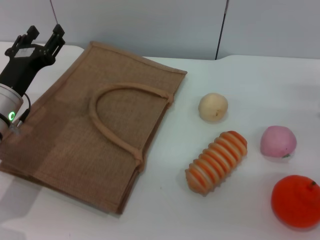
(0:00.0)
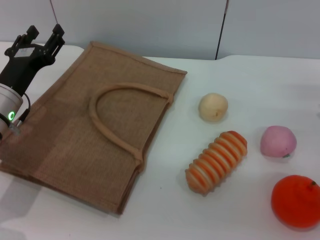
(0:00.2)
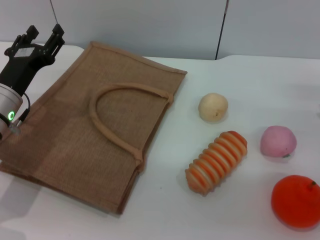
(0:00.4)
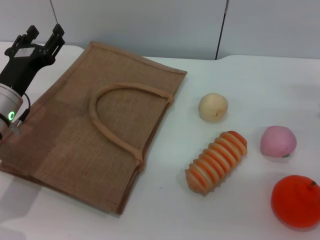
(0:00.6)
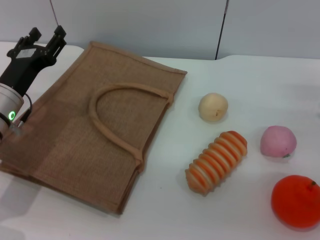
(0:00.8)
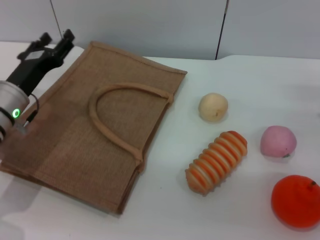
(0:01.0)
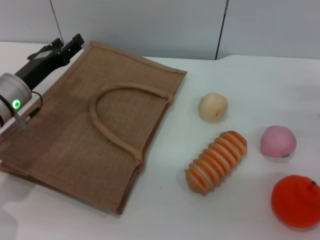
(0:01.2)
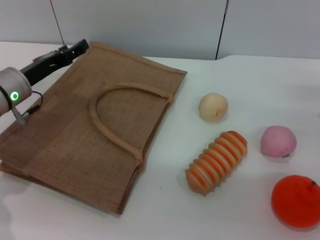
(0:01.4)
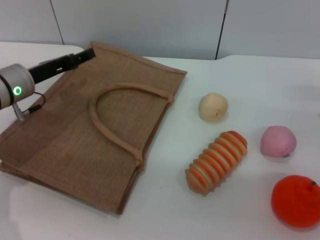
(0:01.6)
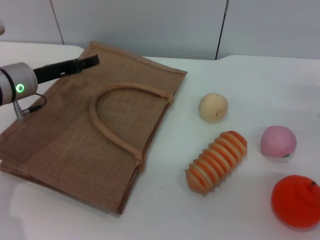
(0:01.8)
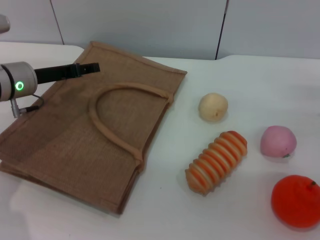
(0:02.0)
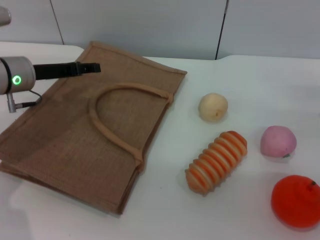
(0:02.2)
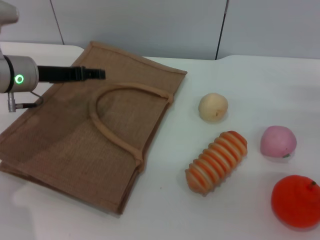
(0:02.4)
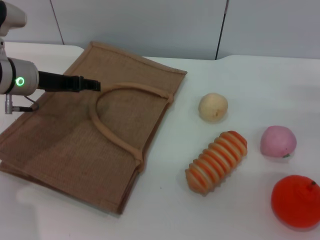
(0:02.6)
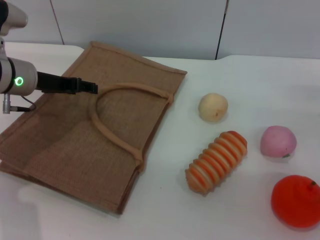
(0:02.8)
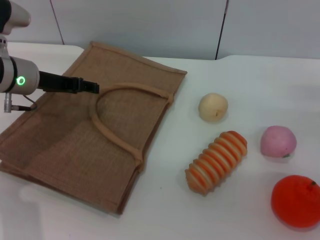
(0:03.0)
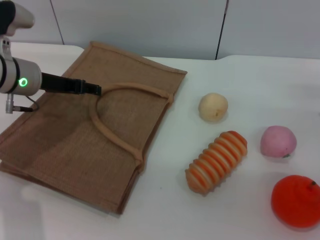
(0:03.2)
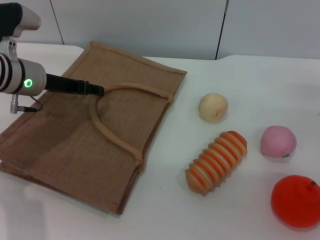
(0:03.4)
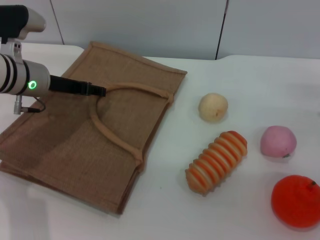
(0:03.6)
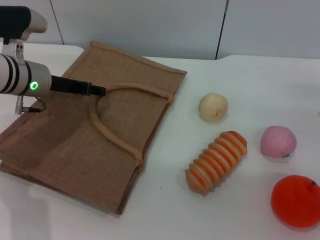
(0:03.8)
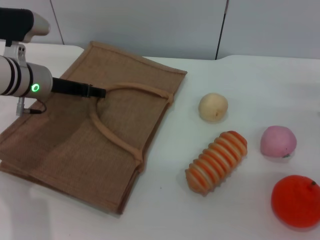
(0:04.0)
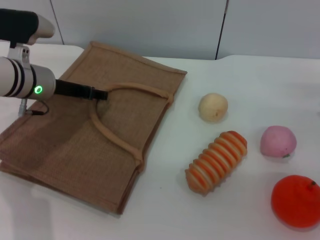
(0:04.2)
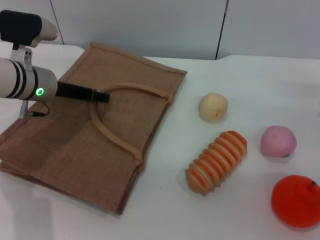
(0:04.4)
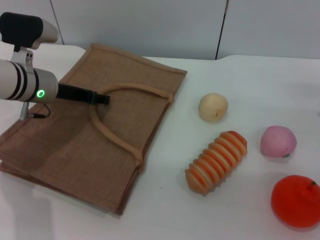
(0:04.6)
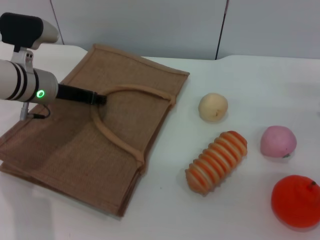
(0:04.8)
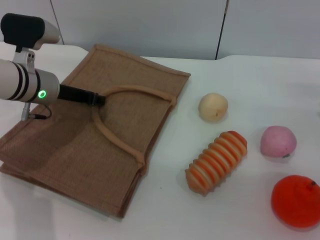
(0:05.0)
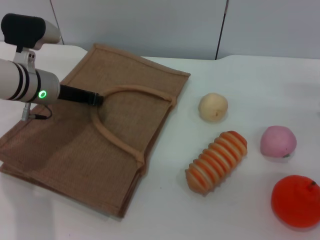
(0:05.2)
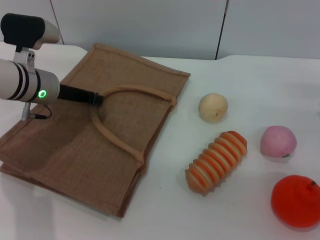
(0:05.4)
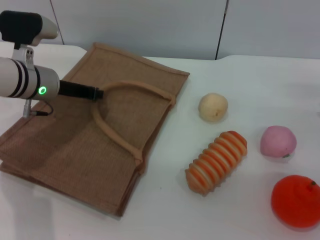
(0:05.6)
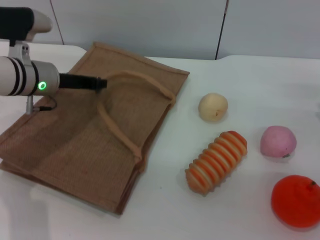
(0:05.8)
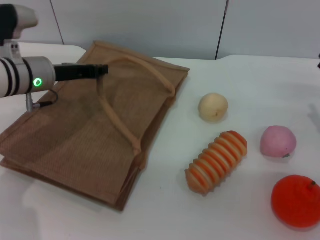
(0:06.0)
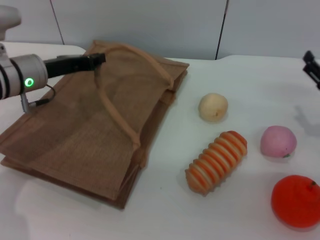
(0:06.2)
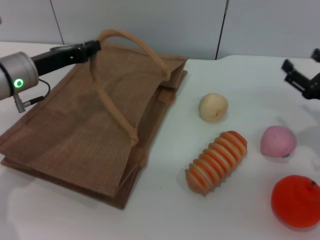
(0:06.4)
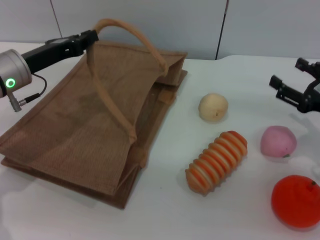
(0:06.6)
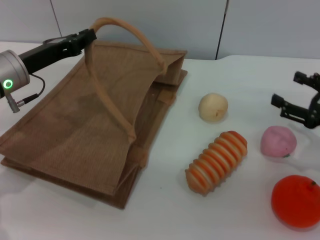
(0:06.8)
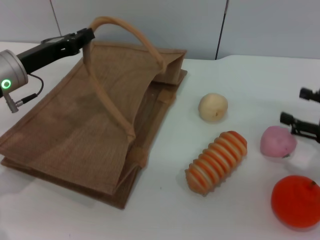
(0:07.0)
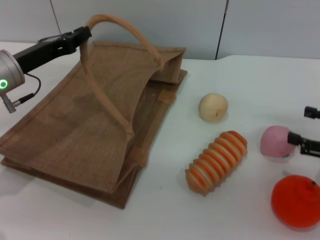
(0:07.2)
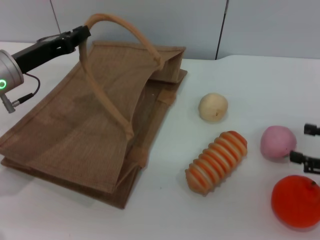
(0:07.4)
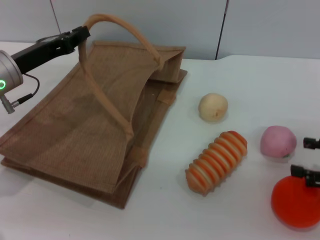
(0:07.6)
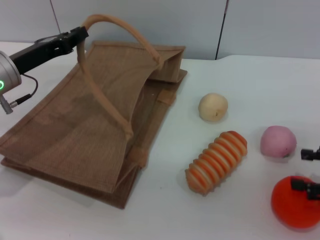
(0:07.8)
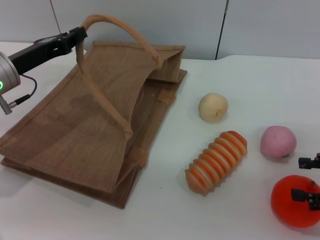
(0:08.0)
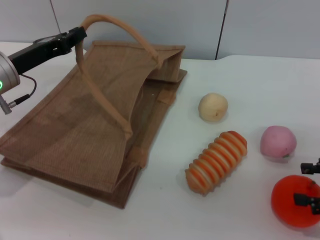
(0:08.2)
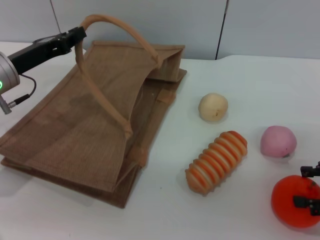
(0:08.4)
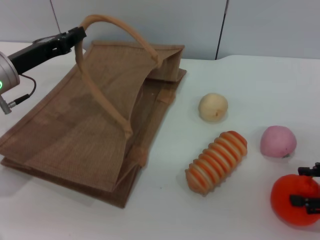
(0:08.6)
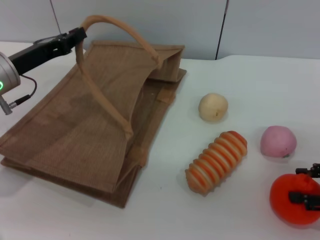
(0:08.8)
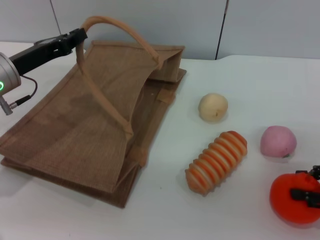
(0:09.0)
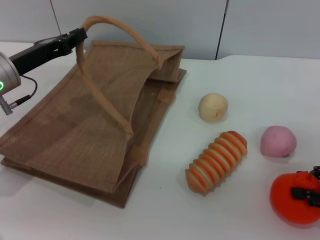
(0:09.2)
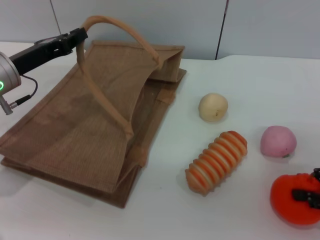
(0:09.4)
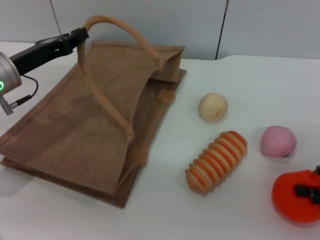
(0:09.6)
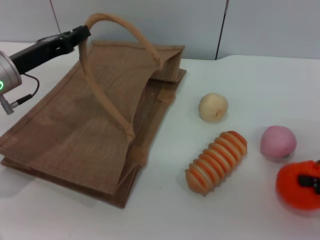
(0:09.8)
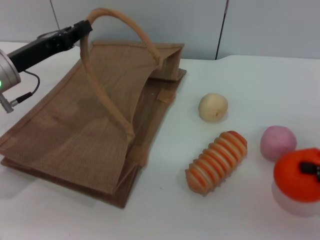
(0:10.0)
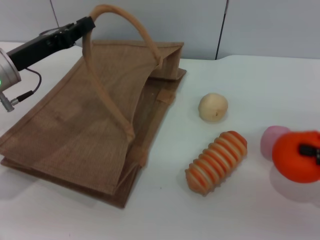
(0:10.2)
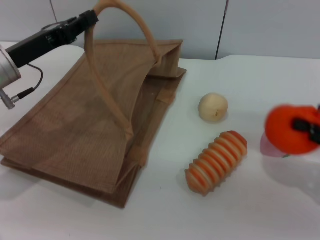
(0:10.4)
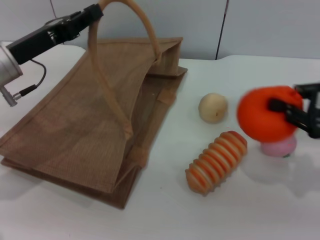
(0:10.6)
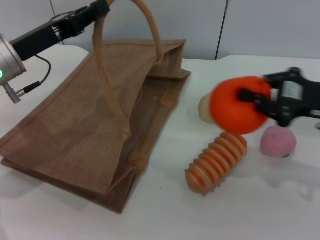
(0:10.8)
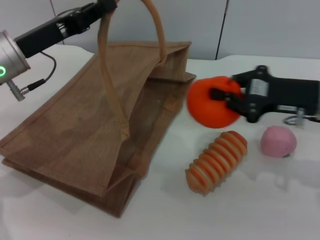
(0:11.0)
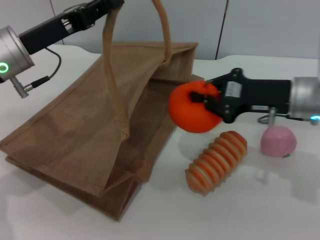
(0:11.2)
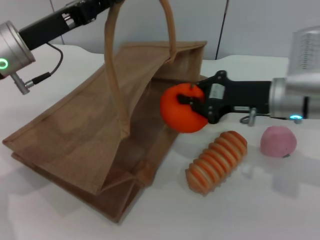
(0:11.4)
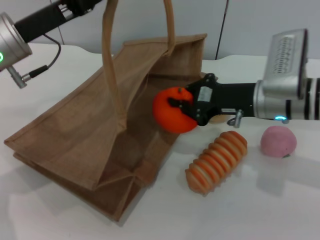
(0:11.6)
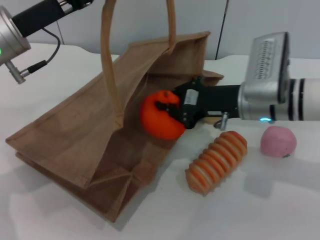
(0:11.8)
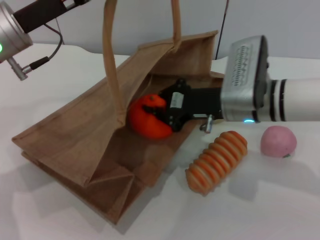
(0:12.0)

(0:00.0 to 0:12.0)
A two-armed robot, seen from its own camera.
Task of the whole recording: pick up the orange from the table and place it in the brown handbag.
Step, 0:00.0 - 0:06.2: Lift the woven bag with the left gripper to open it.
Step, 0:06.4 - 0:09.8: Pick up the orange with the right gripper.
0:00.0 - 0:01.6: The left gripper ends up about 5 cm from where it was.
0:03.0 - 0:04.4: The grippers stay close to where they were, moving slightly.
0:04.4 - 0:06.0: The left gripper closes up.
0:06.0 - 0:07.6: The right gripper is displaced backward by approximately 5 cm, while the left gripper changes place by roughly 5 cm.
0:07.6 - 0:09.0: The grippers make only small movements.
0:09.0 - 0:10.4: The right gripper shifts by some 5 cm, and closes.
0:10.4 - 0:12.0: The left gripper goes approximately 5 cm upward, while the right gripper goes roughly 25 cm to the left.

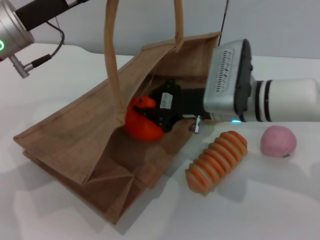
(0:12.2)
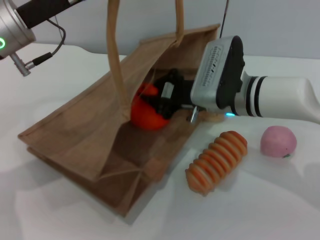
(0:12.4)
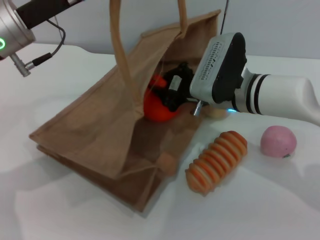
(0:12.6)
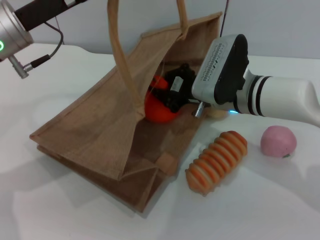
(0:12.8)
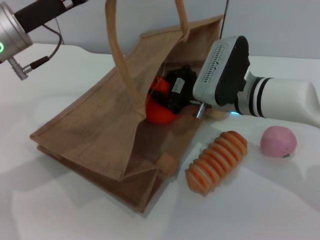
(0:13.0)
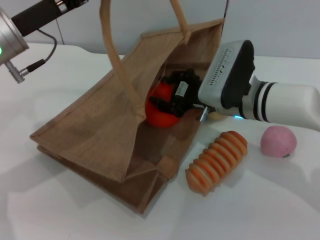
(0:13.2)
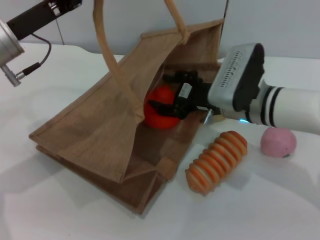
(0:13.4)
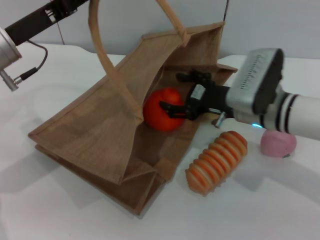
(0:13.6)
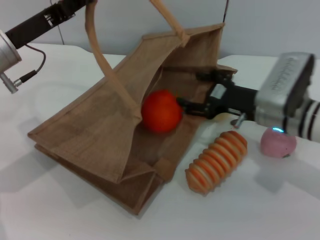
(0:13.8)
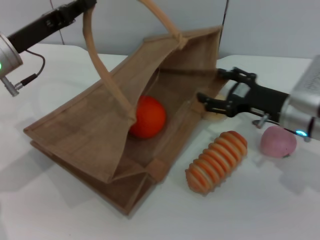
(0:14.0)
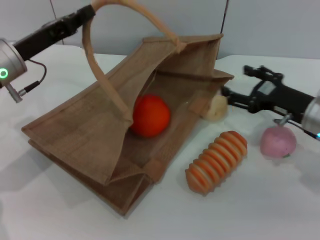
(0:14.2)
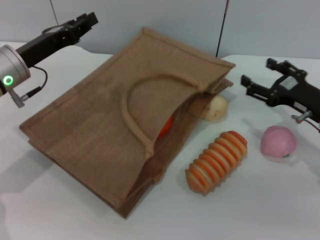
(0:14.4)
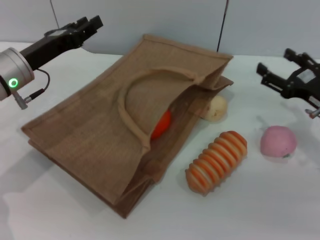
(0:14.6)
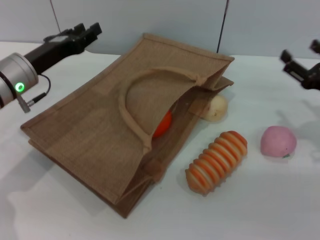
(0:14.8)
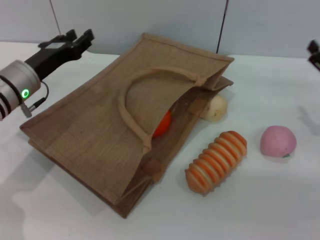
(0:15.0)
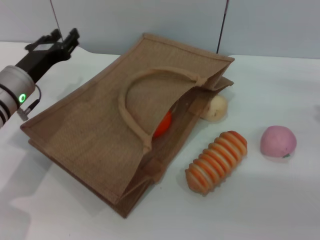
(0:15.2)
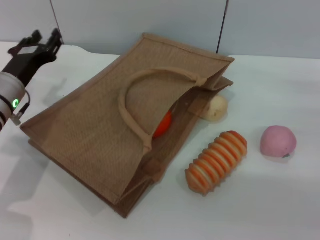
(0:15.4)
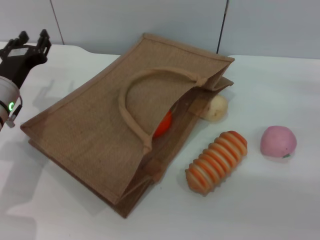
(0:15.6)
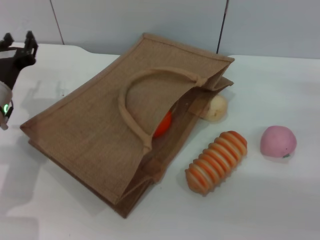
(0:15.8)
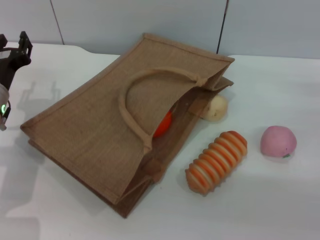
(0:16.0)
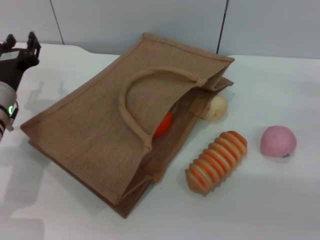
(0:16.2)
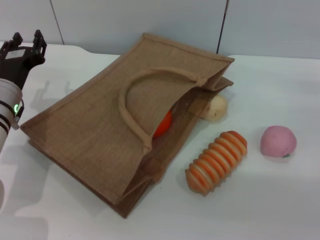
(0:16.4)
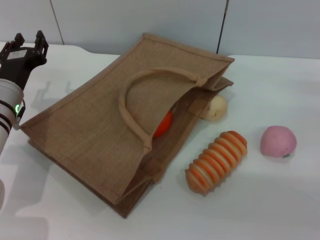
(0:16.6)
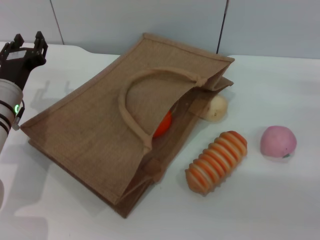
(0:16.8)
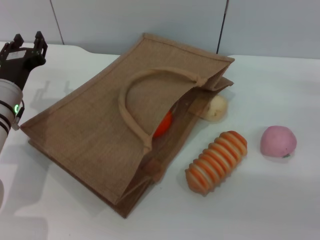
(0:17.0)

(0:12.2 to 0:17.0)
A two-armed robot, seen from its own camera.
Task of the whole recording: pick up the orange from the table and place it in the brown handbag.
Step, 0:13.8 - 0:14.6: Lower the woven bag with the left gripper to close it.
0:12.2 - 0:13.8: The right gripper shifts approximately 5 cm to the right, and opens; the left gripper moves about 5 cm.
0:13.8 - 0:15.4: The right gripper travels to the right by roughly 15 cm. Meanwhile the left gripper travels downward by approximately 10 cm, and opens up.
0:15.4 - 0:17.0: There are only small adjustments of the grippers.

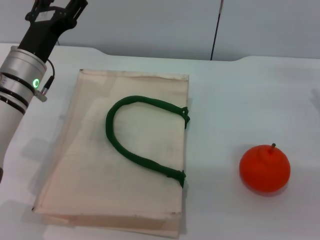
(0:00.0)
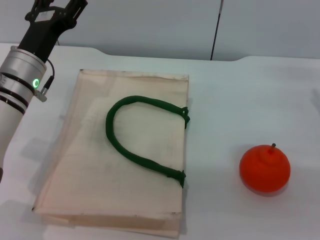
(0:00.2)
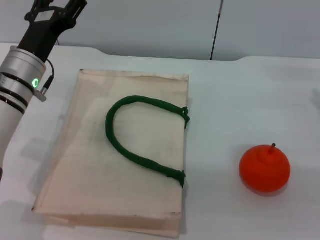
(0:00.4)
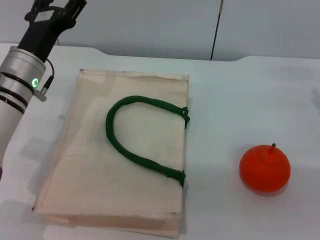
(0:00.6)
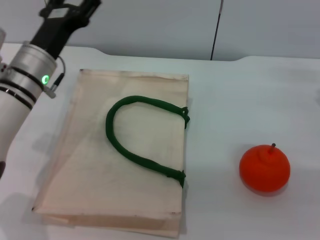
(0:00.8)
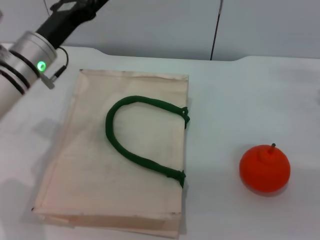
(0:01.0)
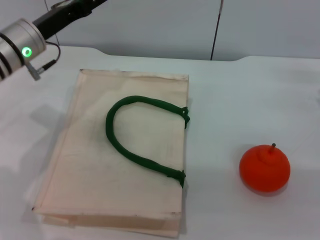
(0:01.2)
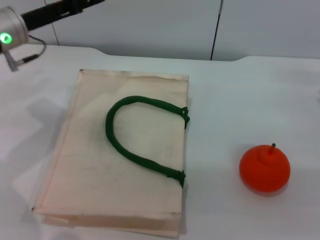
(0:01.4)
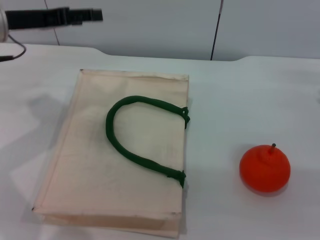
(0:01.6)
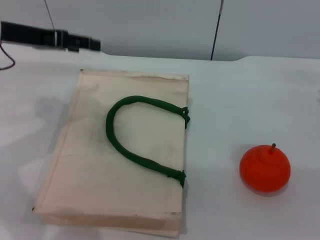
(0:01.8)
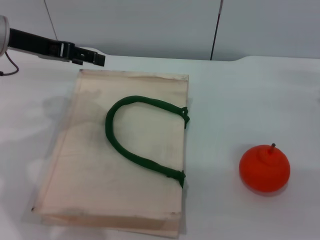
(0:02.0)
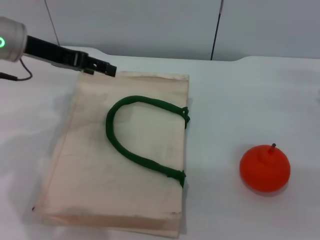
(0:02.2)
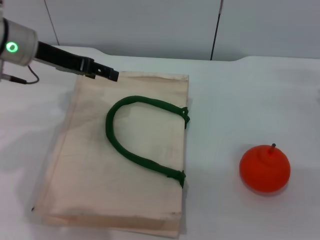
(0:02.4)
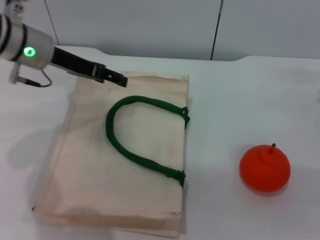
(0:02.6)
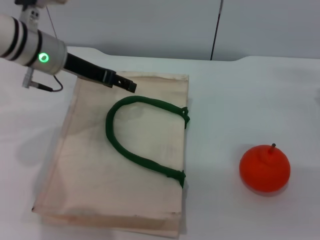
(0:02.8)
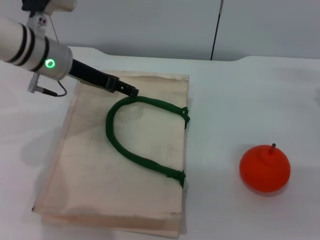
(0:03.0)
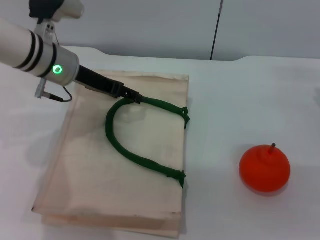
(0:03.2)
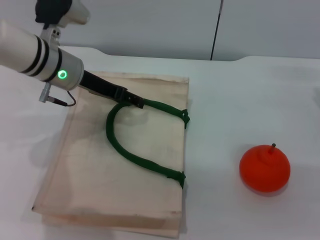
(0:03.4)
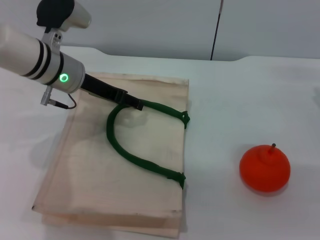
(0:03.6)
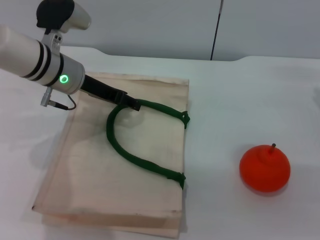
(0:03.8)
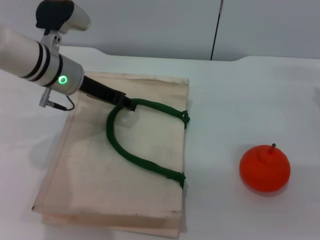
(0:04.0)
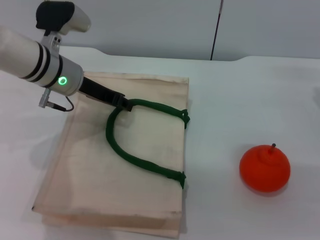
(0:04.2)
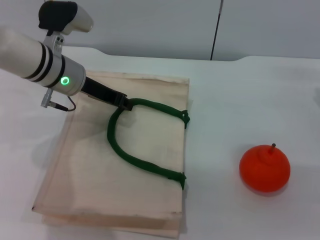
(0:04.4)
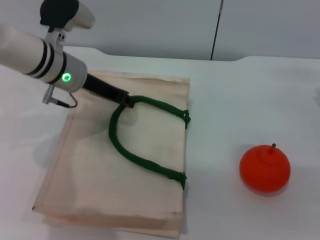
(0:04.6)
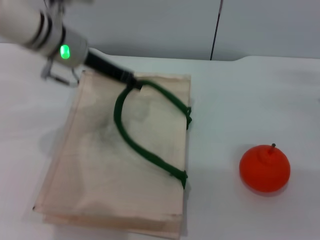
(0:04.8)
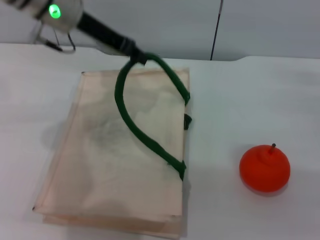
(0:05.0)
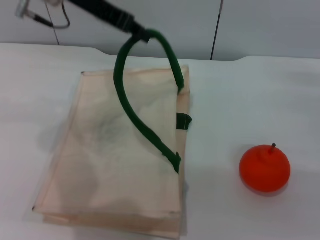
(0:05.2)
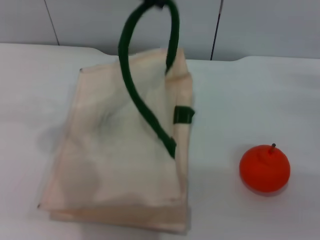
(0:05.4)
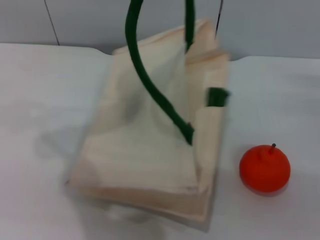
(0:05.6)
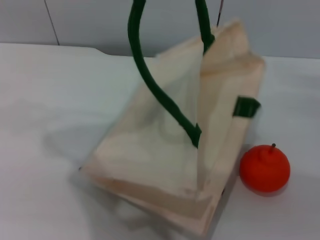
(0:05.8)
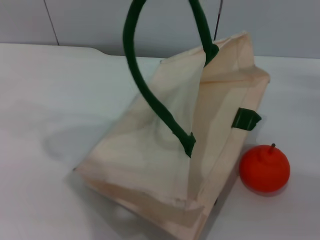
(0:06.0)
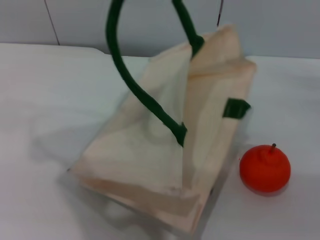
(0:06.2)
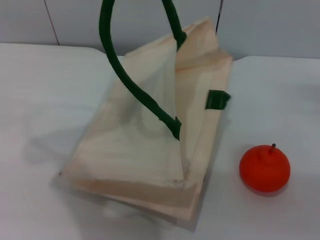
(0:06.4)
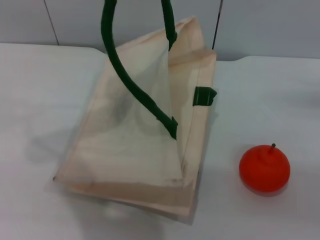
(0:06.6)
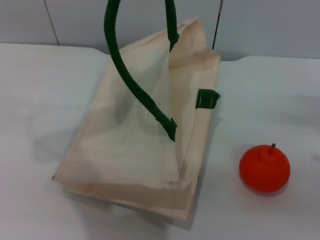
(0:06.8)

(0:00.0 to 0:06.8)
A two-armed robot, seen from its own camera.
Task of the whole recording: pick up the orange from the table and place it in the white handbag.
Step, 0:00.0 - 0:05.8: Lift the woven bag with the left gripper to open it.
0:00.0 - 0:01.4: The left gripper travels upward by approximately 5 cm.
0:01.4 - 0:02.8: The left gripper goes roughly 5 cm to the right.
0:02.8 - 0:04.0: There are only small adjustments of the grippers.
0:04.0 - 0:05.4: The left gripper moves upward, approximately 20 cm, and closes up.
0:05.4 - 0:06.8: The right gripper heads upward and to the right, covering roughly 10 cm.
